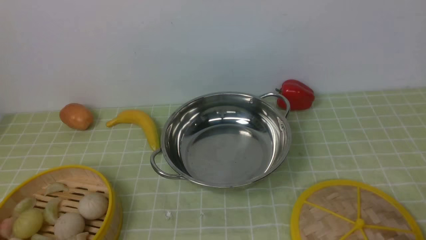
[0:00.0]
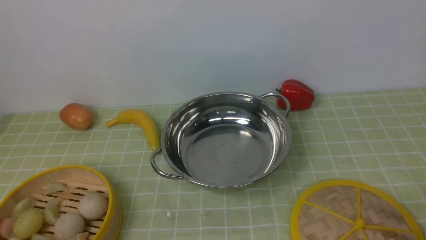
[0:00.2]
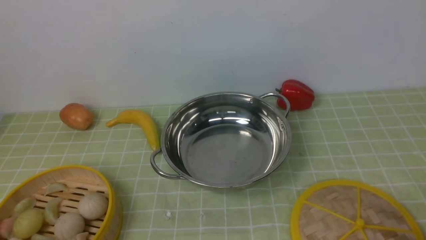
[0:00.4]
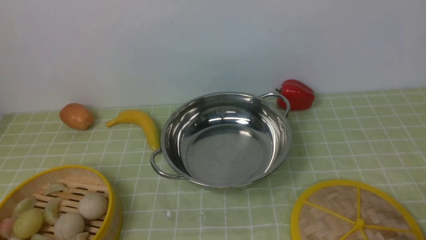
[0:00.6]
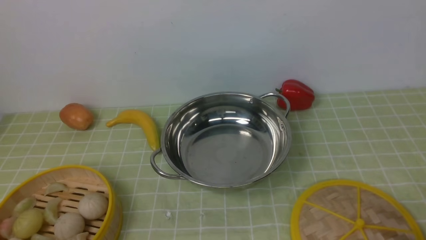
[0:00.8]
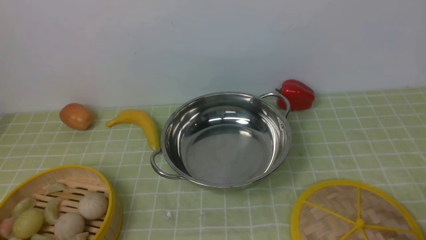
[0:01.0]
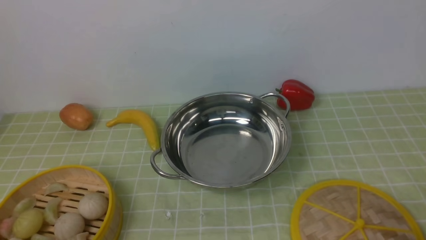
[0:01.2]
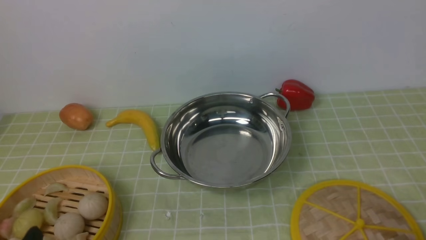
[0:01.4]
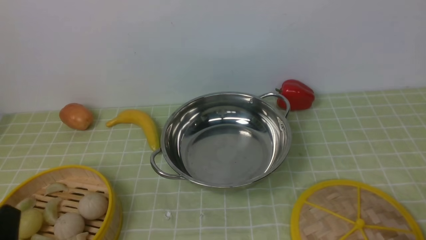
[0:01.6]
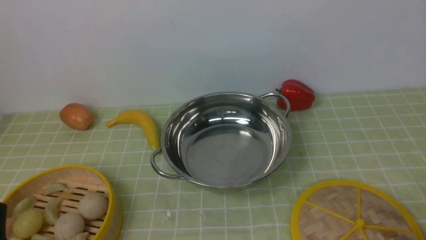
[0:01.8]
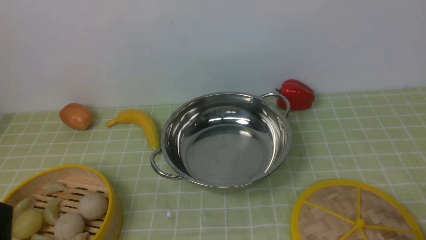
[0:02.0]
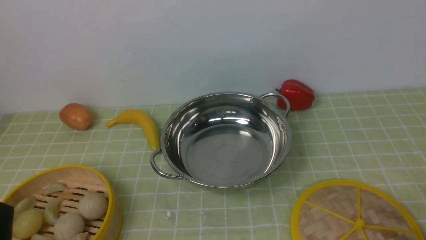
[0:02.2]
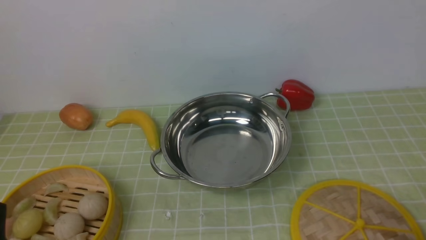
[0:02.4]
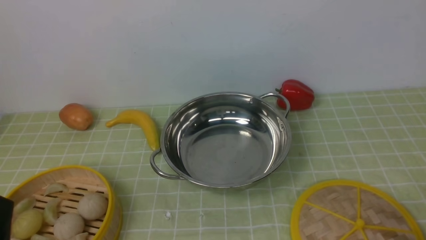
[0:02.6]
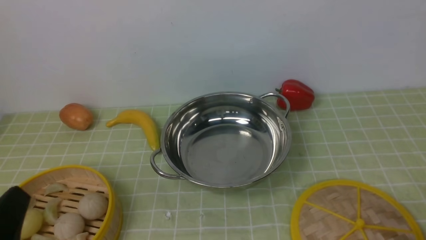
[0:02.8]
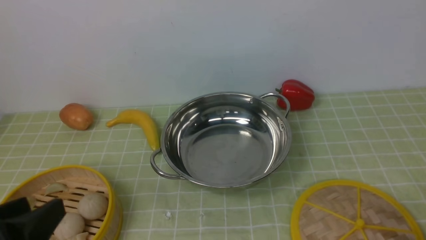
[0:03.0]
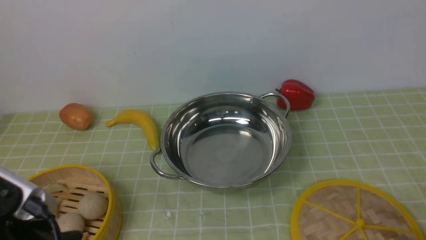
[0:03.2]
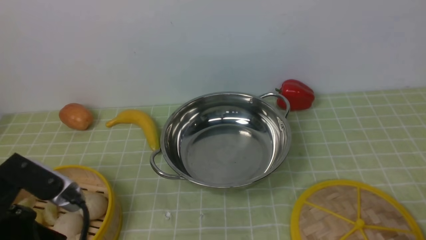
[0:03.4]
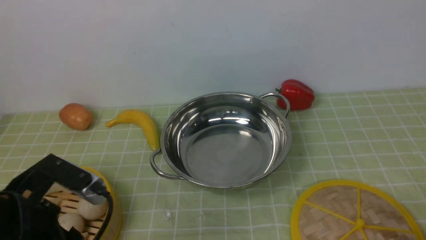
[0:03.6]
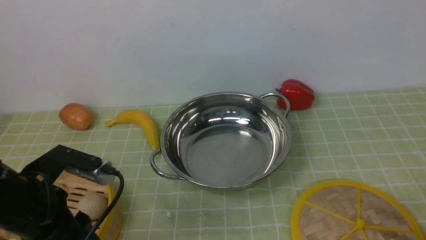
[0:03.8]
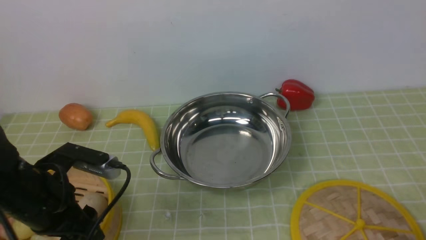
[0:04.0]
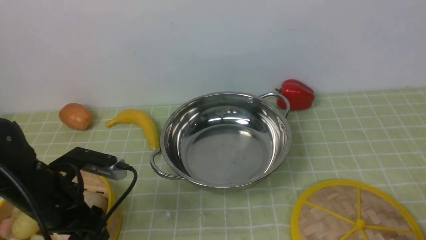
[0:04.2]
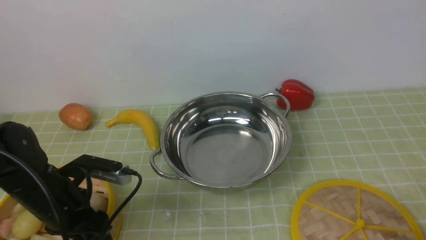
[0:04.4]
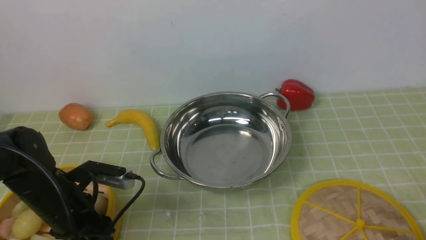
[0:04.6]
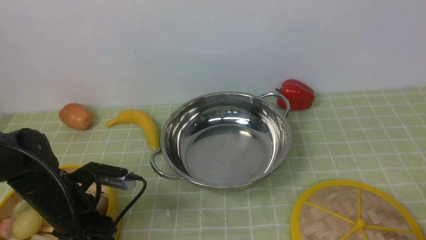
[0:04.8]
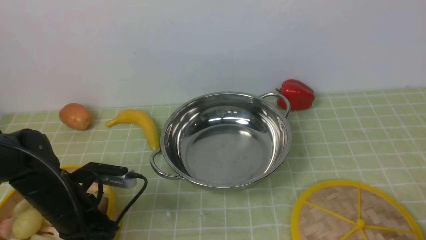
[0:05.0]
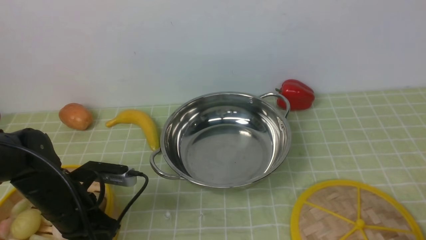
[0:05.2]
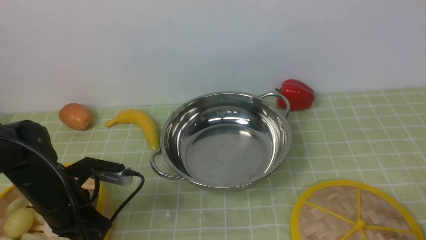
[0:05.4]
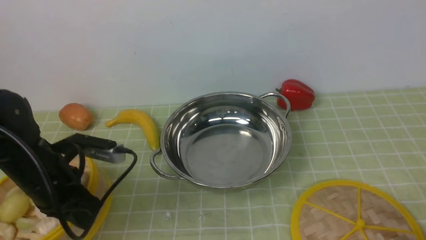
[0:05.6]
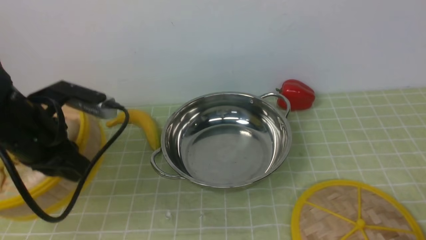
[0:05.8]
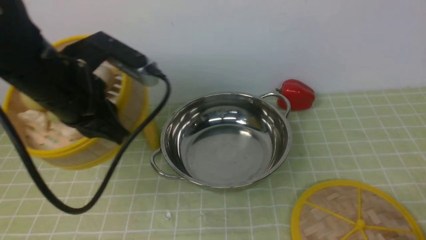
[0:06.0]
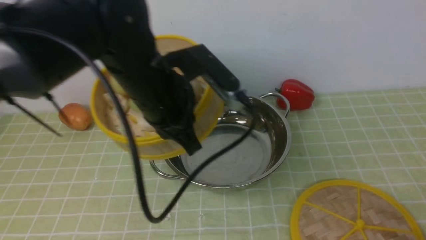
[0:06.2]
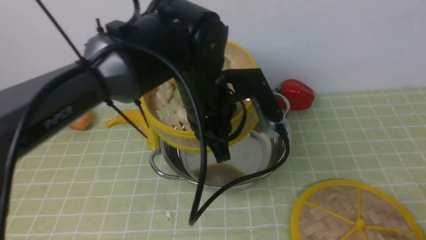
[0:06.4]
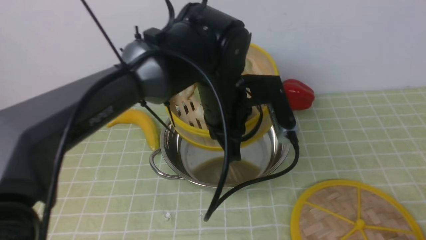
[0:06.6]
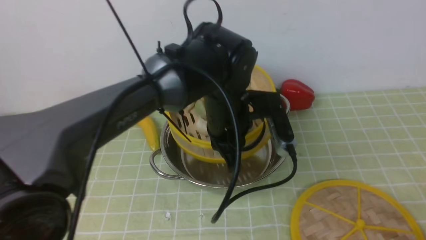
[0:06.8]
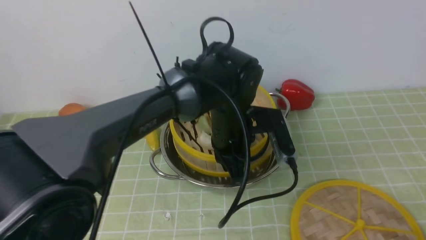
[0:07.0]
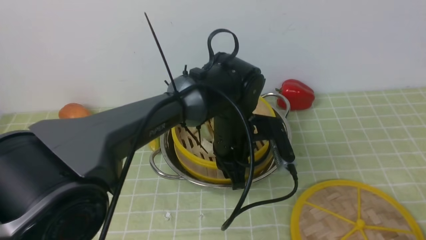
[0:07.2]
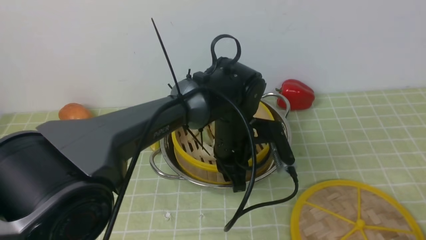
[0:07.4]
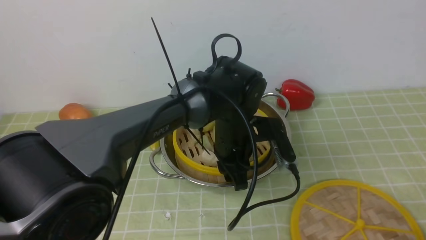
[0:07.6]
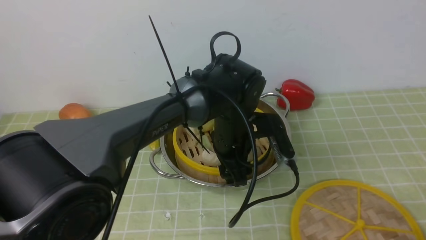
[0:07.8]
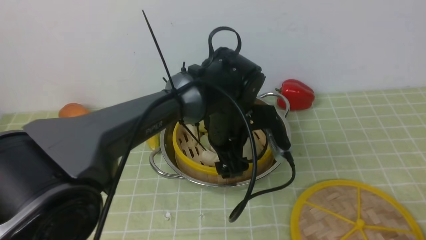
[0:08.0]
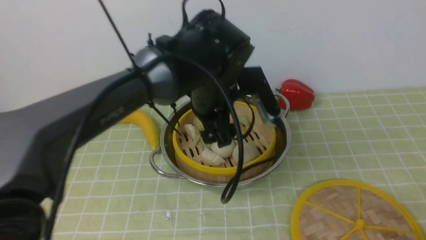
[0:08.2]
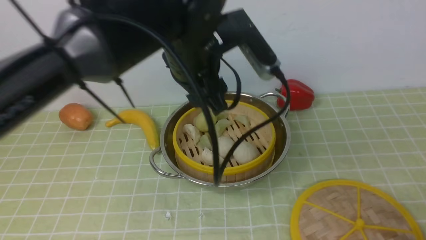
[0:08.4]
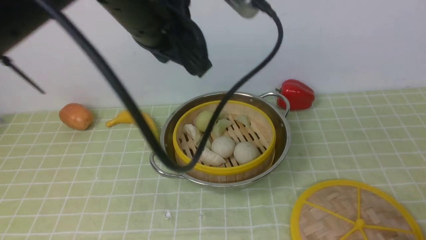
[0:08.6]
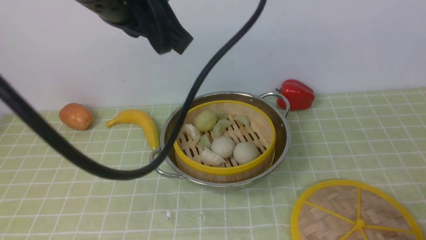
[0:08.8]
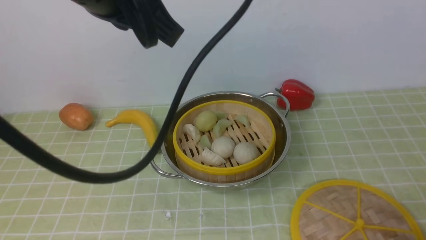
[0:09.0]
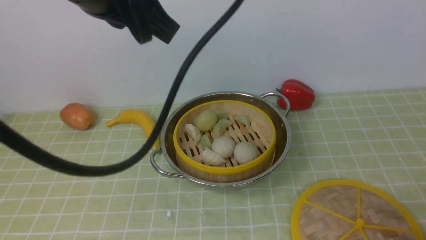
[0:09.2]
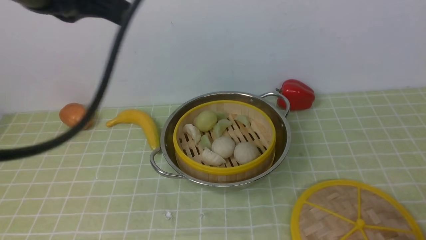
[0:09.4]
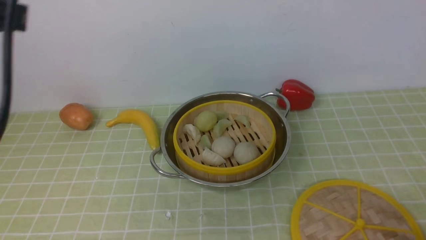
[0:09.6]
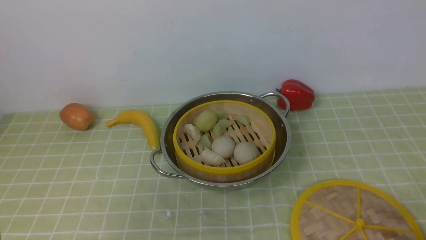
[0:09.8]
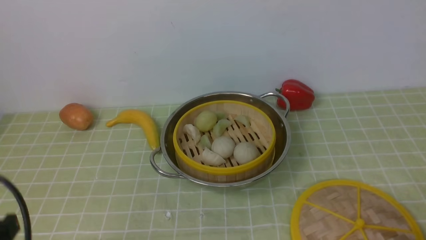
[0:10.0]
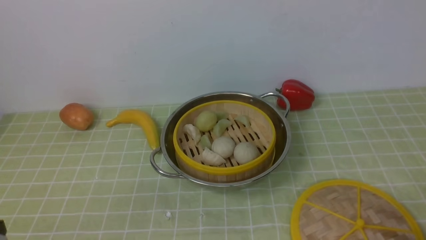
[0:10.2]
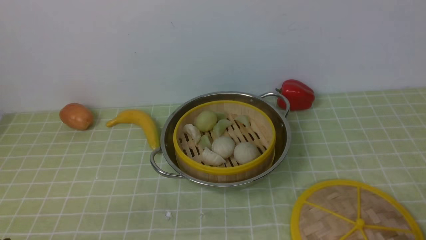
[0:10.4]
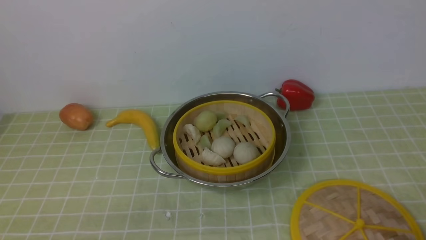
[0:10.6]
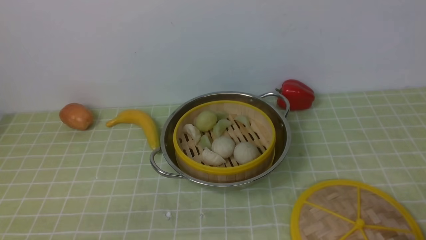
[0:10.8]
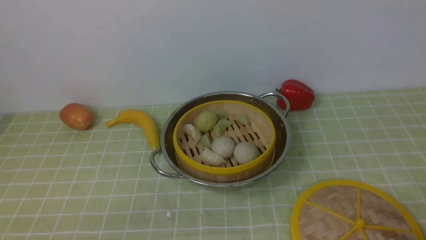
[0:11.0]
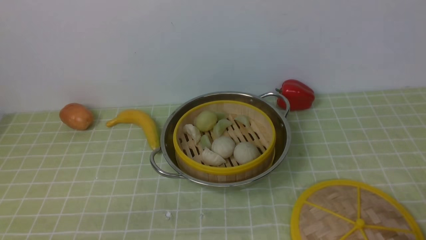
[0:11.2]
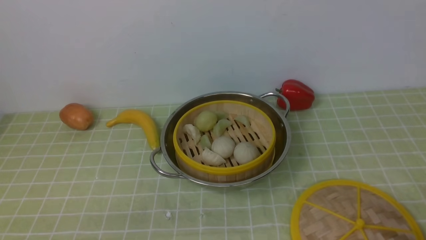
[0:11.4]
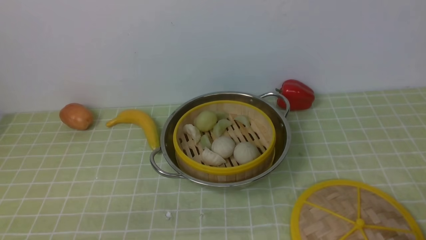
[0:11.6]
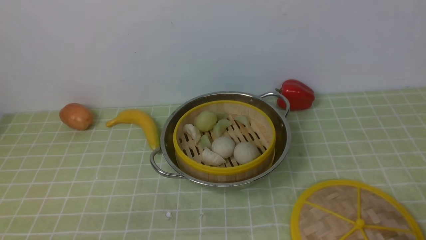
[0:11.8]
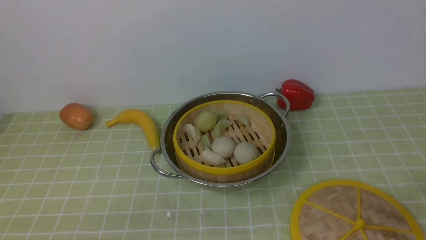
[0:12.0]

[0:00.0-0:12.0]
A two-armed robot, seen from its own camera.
Task of the whole recording: place the steamer in the pot on the green tablecloth, and put the lid on the steamer.
Step, 0:00.0 to 0:05.8: use the left arm to lift the steamer closest to it.
Step, 0:06.2 to 0:08.8: use the left arm to put the steamer into the iron steamer pot in the middle.
0:01.6 to 0:03.0: The left gripper goes about 10 cm upward.
0:03.0 to 0:04.4: The left gripper travels forward and downward by about 20 cm.
0:04.4 to 0:06.0: The left gripper shifts about 15 cm upward and to the right, and closes its fingers.
0:06.0 to 0:07.6: The left gripper moves to the right and downward, roughly 20 cm, and opens its fingers.
0:07.6 to 0:09.0: The left gripper moves upward and to the left, roughly 30 cm, and closes up.
0:09.0 to 0:10.4: The left gripper moves downward, backward and to the left, approximately 40 cm.

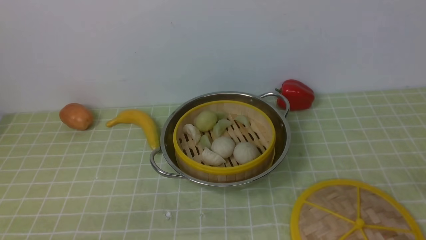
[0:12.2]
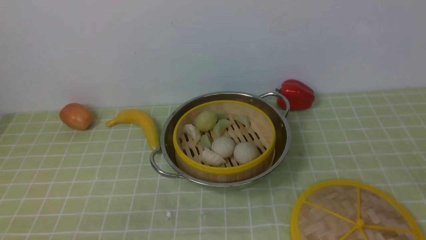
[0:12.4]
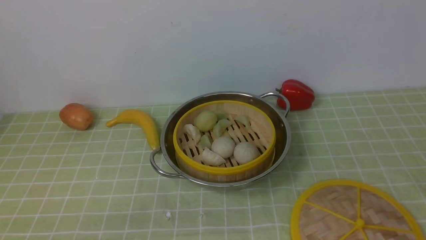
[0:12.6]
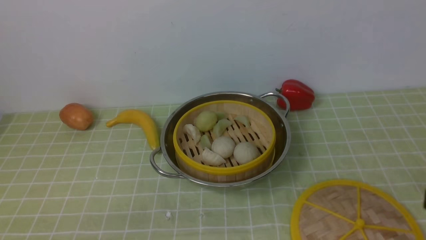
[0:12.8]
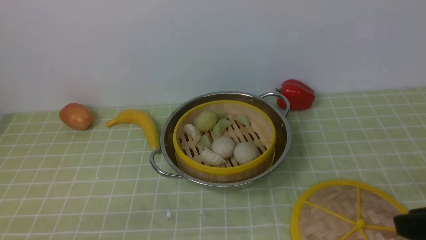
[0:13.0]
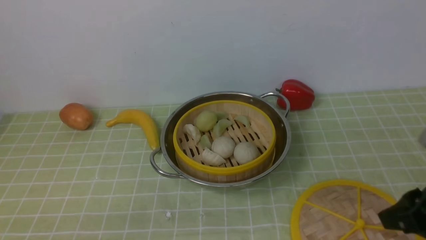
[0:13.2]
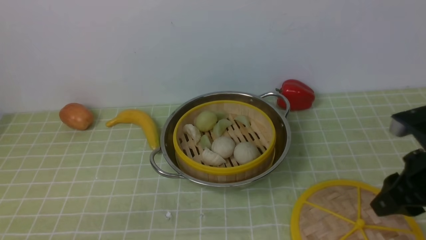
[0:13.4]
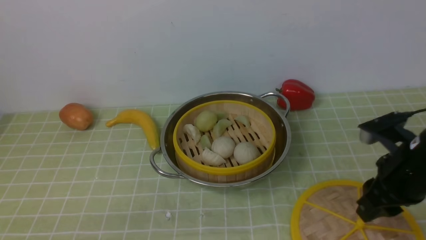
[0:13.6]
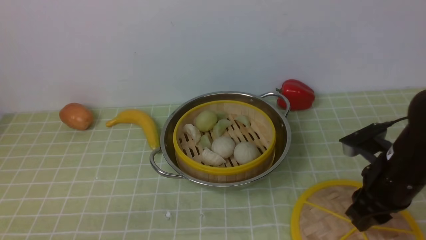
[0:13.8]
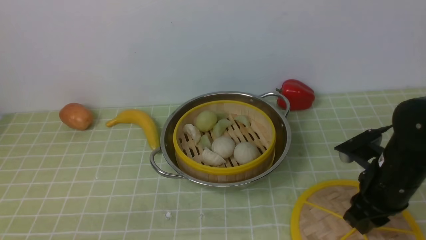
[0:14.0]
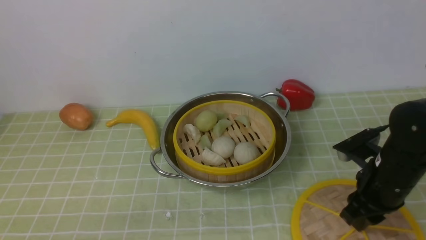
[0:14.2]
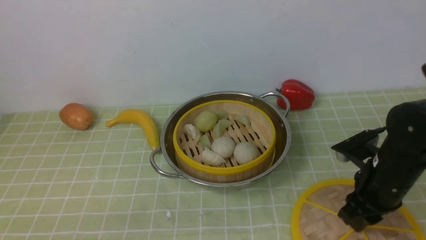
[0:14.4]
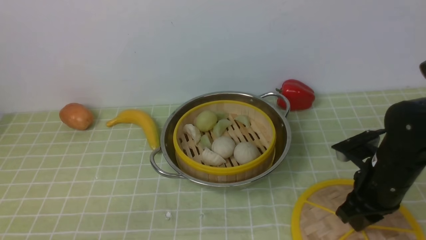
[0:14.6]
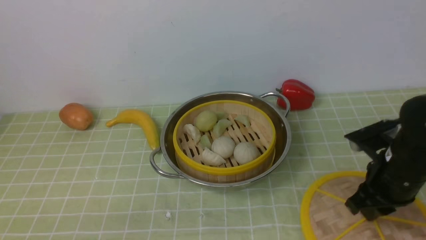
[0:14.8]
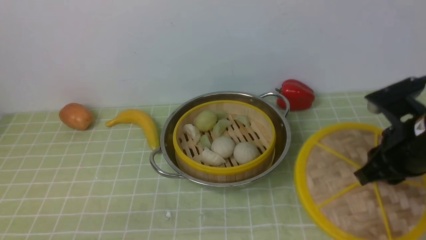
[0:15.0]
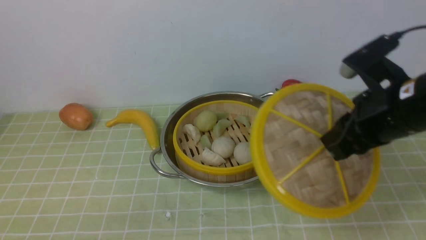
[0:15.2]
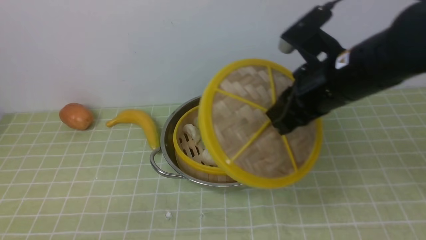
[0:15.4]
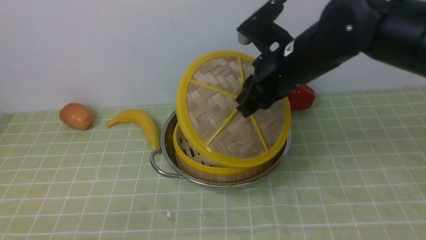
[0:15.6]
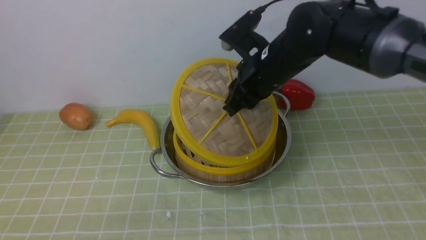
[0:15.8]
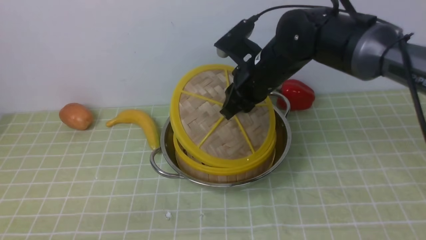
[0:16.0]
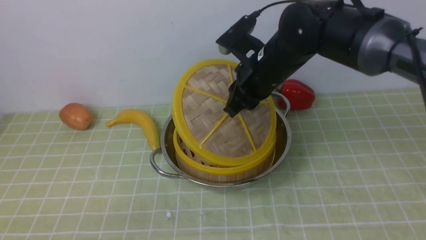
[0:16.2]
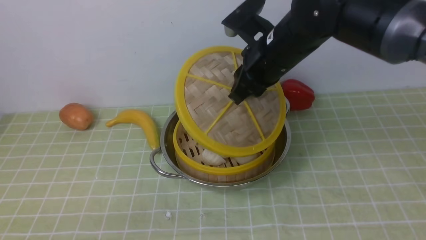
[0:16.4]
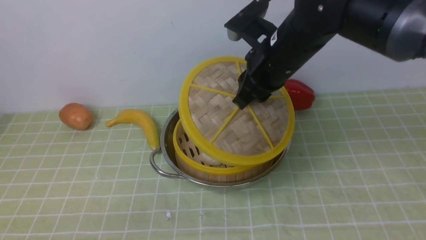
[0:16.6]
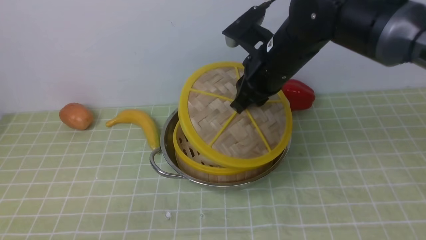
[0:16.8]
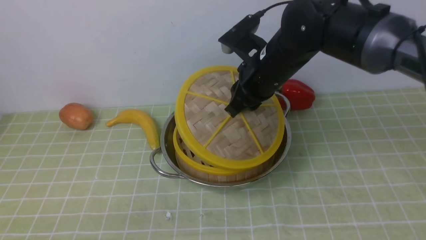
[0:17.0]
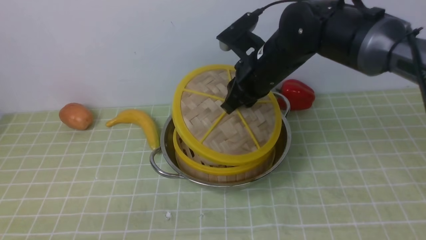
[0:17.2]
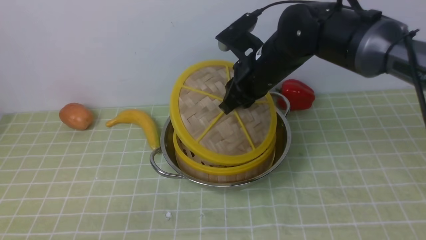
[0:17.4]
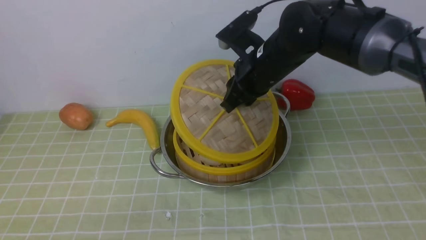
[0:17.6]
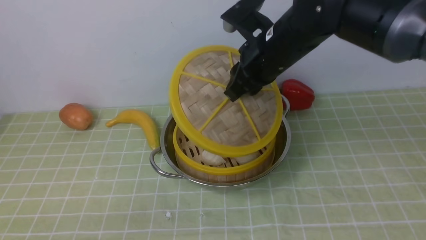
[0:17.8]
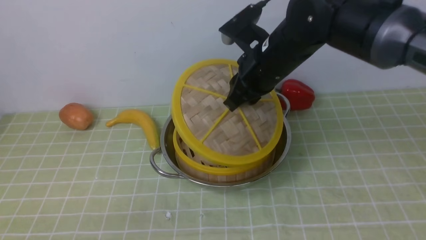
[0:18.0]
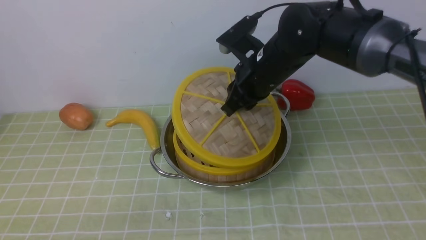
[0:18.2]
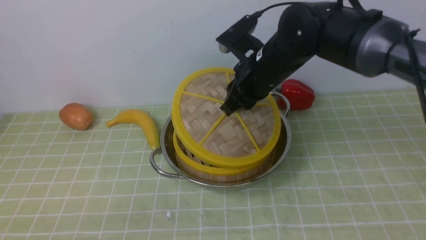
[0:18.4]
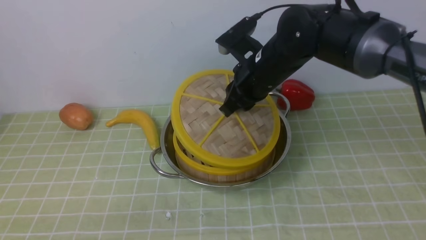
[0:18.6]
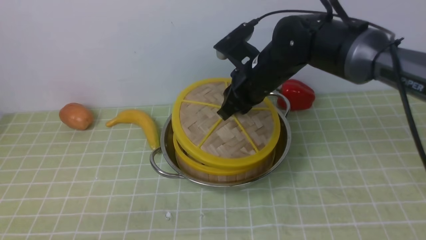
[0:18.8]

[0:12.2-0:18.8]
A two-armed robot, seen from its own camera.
Task of the whole recording: place the steamer in the pot on the green tablecloth, and put the lid on the steamer.
Step, 0:12.2 to 0:15.2: use the right arm to lift the lid of the steamer.
0:12.2 to 0:13.8: The right gripper travels forward by about 20 cm.
0:13.8 to 0:15.4: The right gripper goes roughly 15 cm upward, to the left and forward.
0:15.4 to 0:17.2: The right gripper is displaced forward and to the left by about 10 cm.
0:17.2 to 0:18.8: The grippers move only a little.
